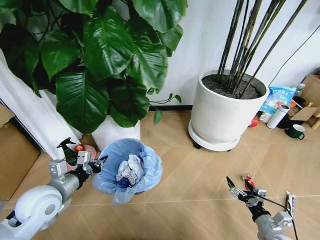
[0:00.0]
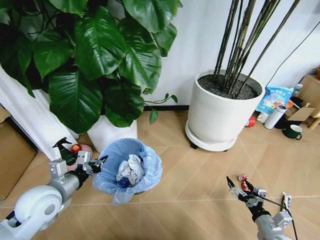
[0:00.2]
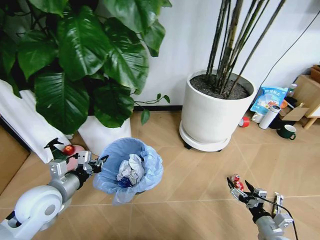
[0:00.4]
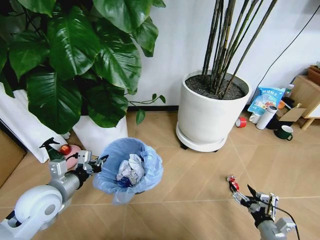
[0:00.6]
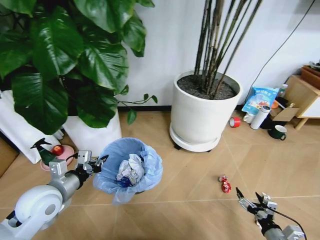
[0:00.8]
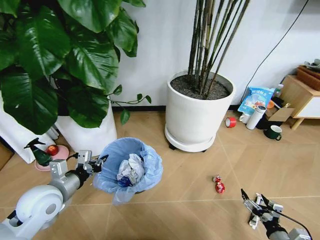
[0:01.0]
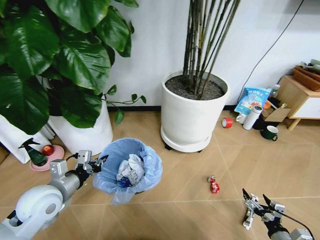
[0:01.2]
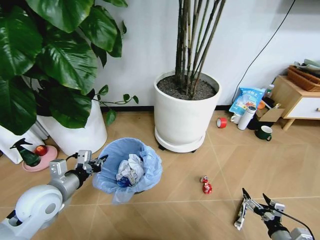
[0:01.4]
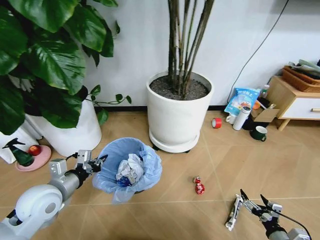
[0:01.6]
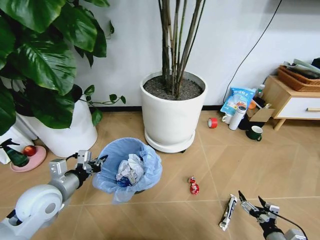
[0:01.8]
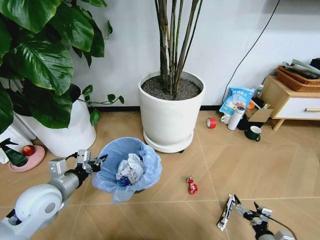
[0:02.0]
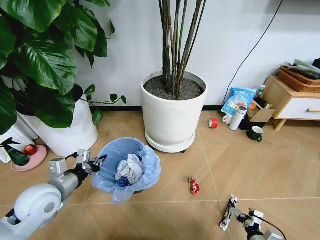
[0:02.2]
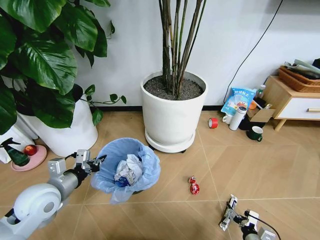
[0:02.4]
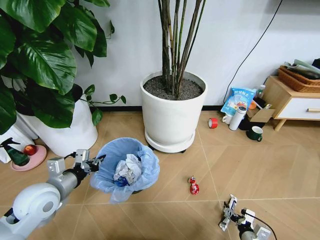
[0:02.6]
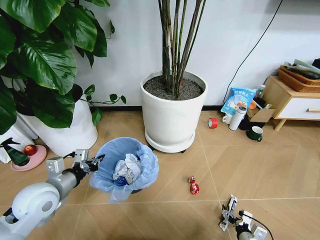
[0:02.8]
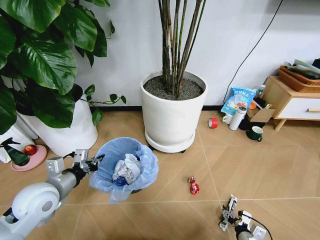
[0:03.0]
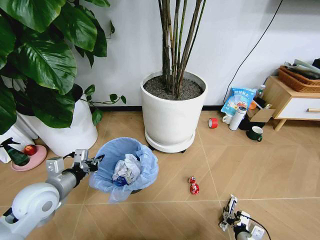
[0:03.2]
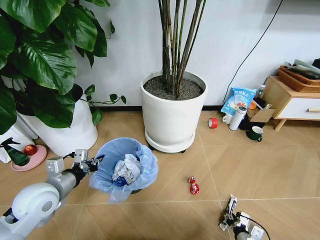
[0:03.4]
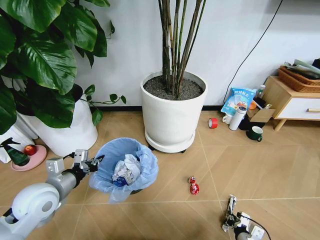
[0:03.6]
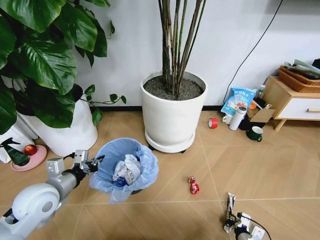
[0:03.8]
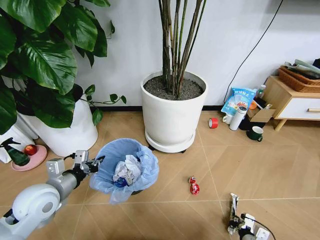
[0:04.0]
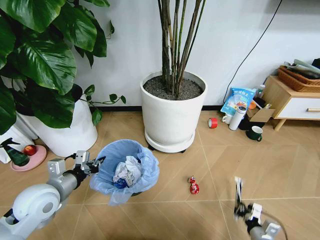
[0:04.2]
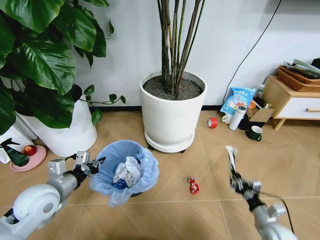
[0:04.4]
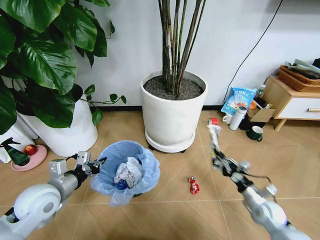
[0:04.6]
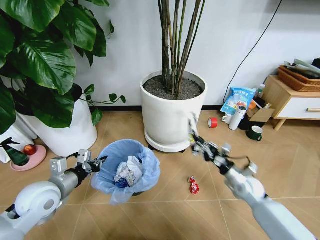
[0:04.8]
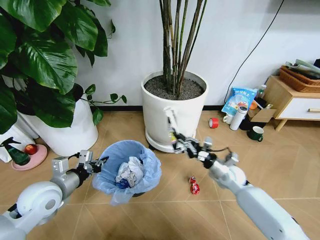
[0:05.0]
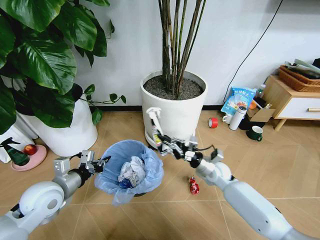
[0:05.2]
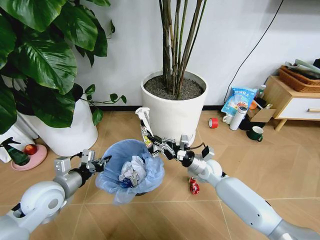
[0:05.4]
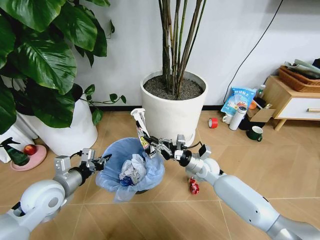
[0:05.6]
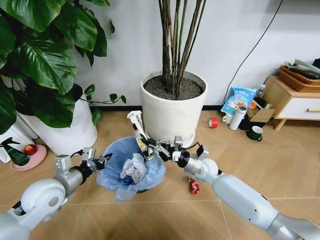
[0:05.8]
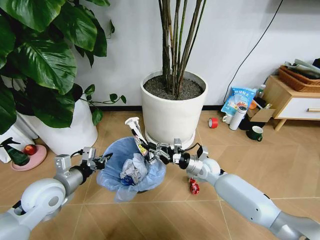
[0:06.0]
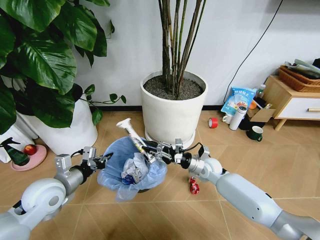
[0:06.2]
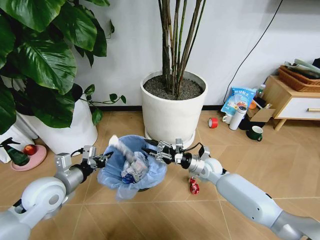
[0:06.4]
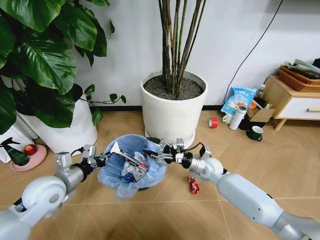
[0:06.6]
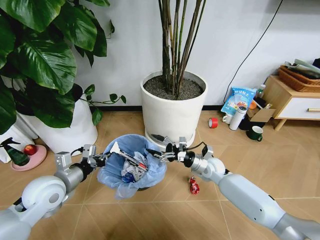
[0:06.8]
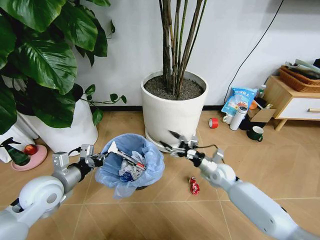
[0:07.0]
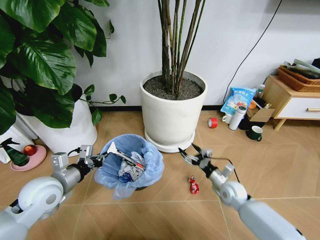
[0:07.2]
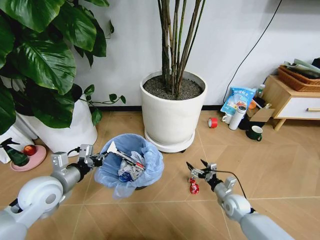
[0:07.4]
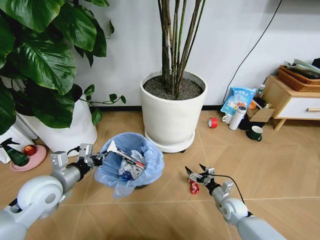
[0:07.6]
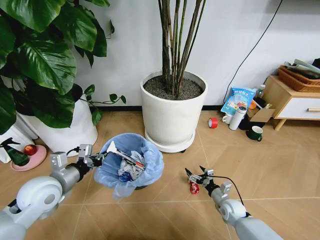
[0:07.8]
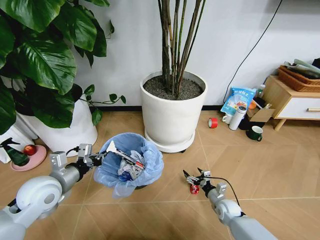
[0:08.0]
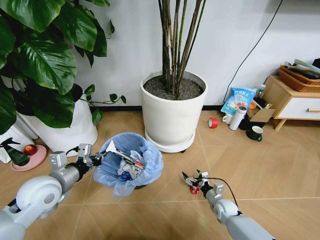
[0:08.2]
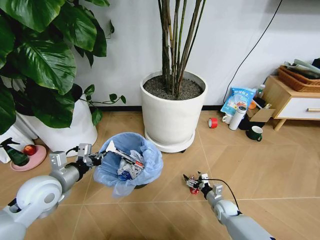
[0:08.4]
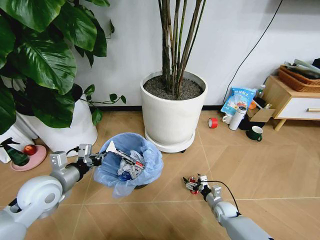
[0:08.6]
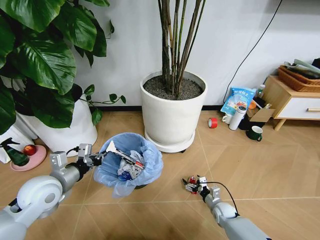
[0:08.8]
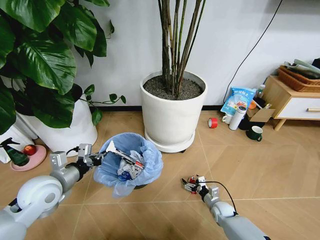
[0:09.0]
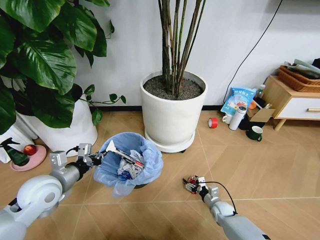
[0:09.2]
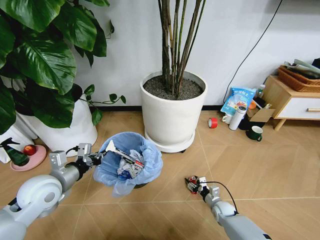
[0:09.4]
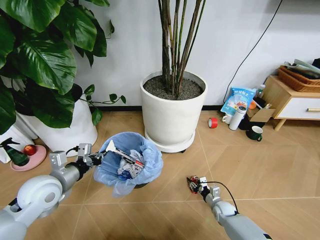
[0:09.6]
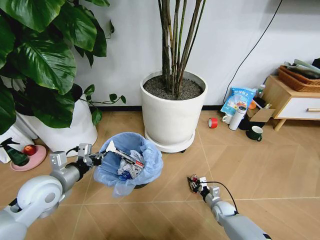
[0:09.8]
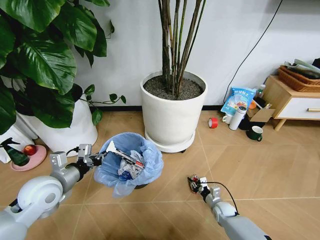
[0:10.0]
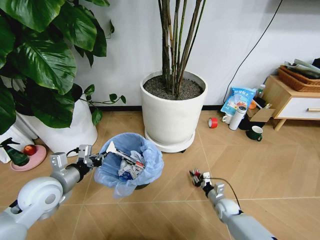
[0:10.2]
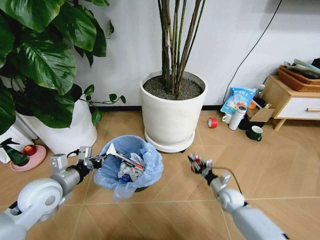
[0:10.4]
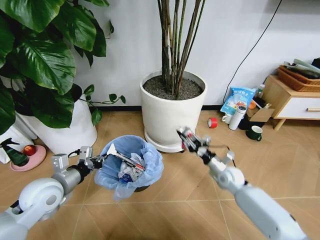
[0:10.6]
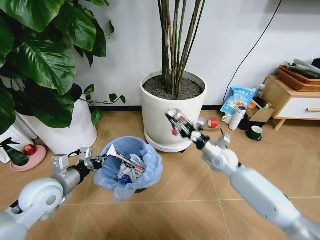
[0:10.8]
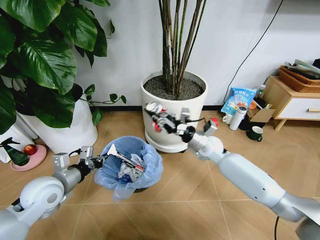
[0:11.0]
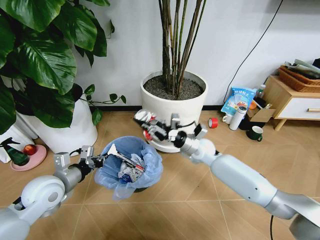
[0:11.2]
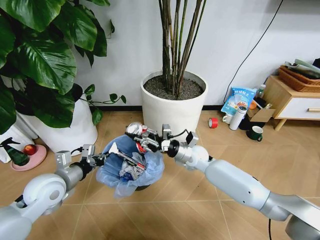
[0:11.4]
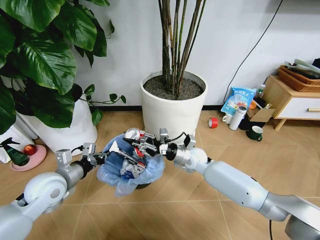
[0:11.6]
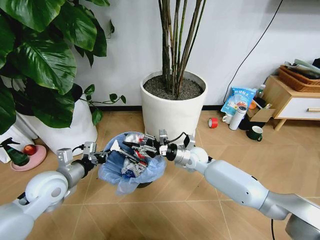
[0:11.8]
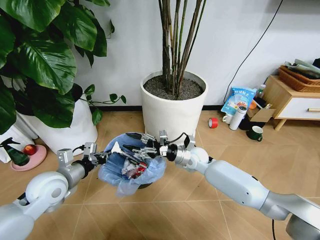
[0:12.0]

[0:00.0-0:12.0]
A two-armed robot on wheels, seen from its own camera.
Task of the whole recording: Pick up the trash bin and place the garbage on the floor into it.
0:00.0 to 0:01.6: The right gripper changes place by roughly 5 cm.
0:01.6 to 0:03.0: The right gripper goes roughly 10 cm to the left and downward.
0:03.0 to 0:04.4: The right gripper goes some 10 cm to the right and upward, and closes.
0:04.4 to 0:06.0: The right gripper travels forward and to the left by approximately 30 cm.
0:06.0 to 0:07.6: The right gripper goes about 20 cm downward, backward and to the right, and opens.
0:07.6 to 0:09.0: The right gripper is displaced downward by roughly 5 cm.
0:09.0 to 0:10.4: The right gripper is displaced upward by about 10 cm, and closes up.
0:10.4 to 0:12.0: The right gripper travels to the left, upward and forward by approximately 25 cm, and opens its fingers.

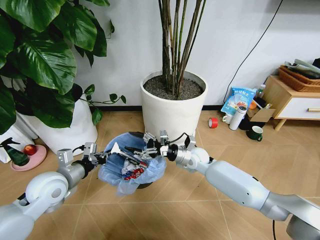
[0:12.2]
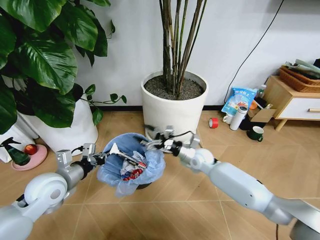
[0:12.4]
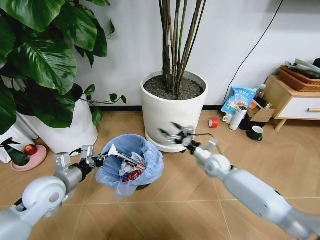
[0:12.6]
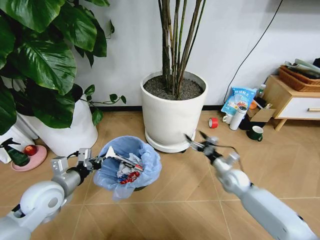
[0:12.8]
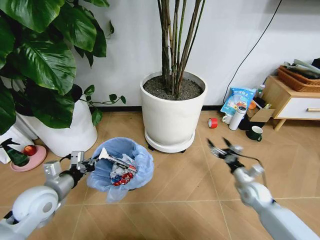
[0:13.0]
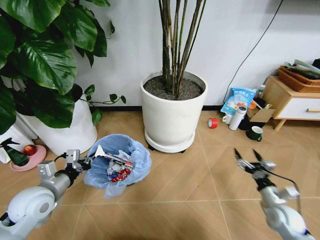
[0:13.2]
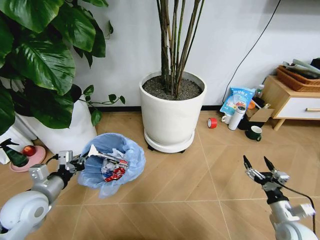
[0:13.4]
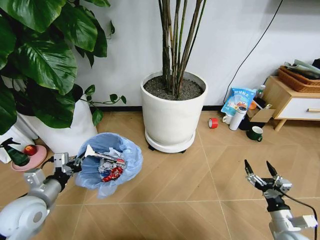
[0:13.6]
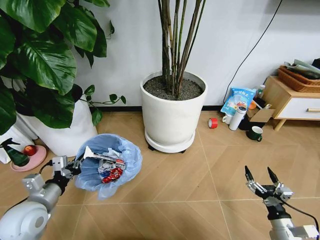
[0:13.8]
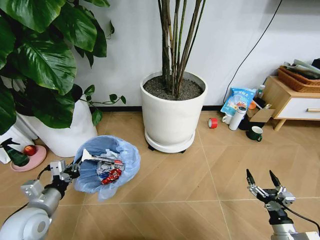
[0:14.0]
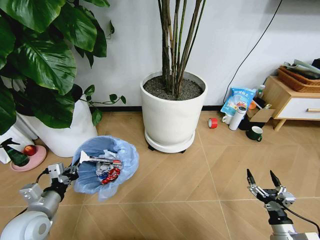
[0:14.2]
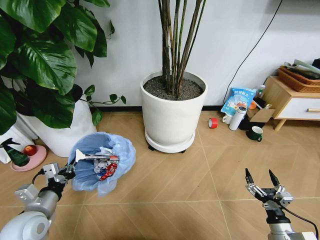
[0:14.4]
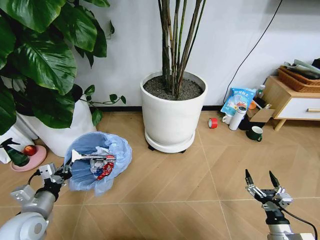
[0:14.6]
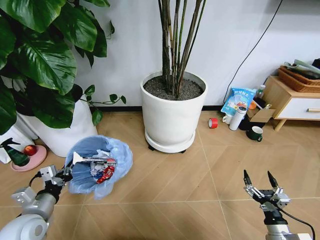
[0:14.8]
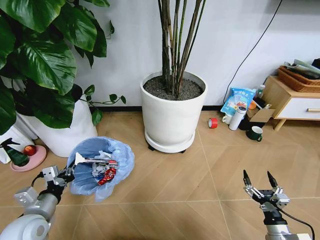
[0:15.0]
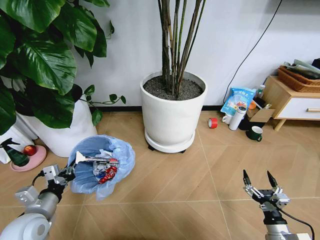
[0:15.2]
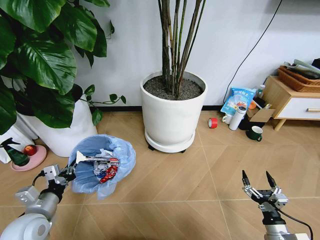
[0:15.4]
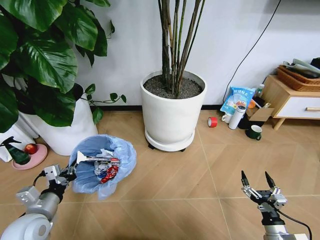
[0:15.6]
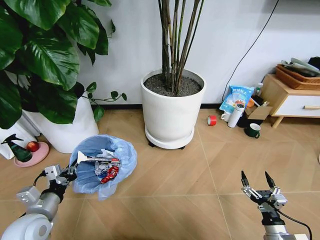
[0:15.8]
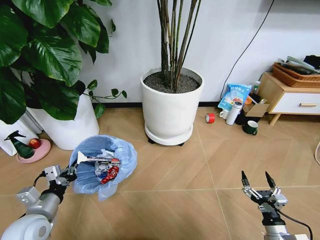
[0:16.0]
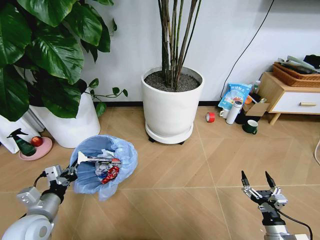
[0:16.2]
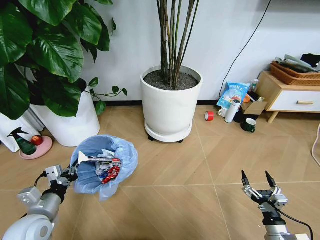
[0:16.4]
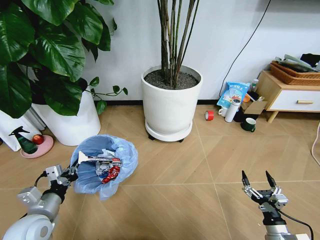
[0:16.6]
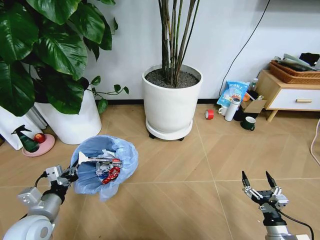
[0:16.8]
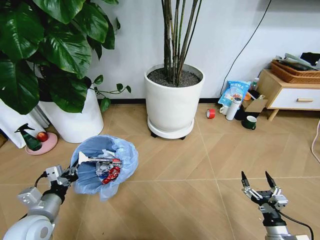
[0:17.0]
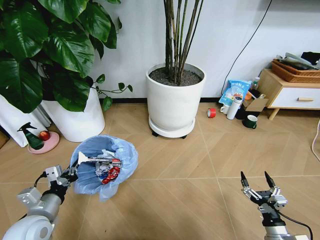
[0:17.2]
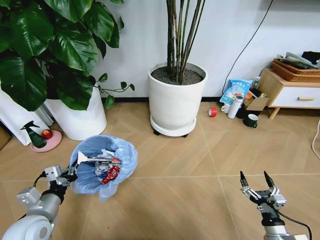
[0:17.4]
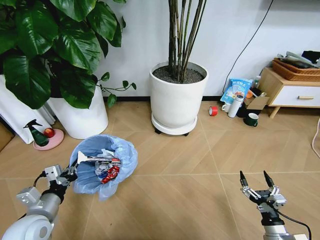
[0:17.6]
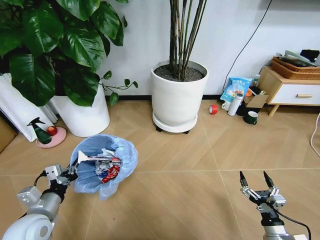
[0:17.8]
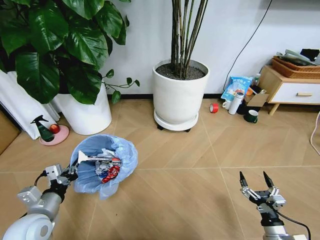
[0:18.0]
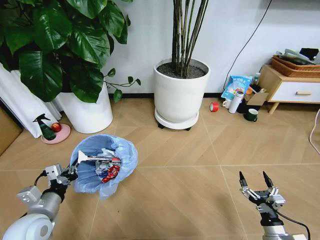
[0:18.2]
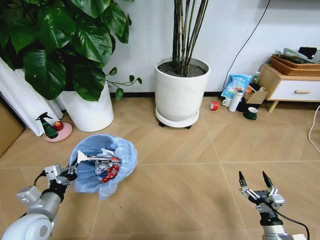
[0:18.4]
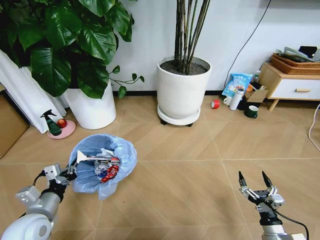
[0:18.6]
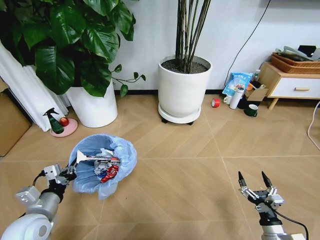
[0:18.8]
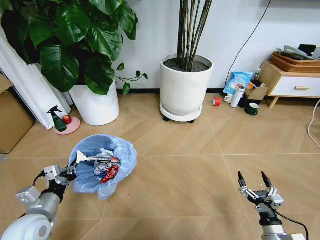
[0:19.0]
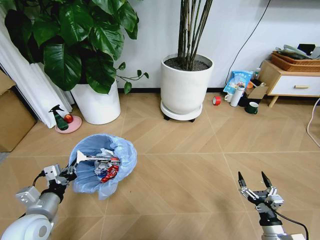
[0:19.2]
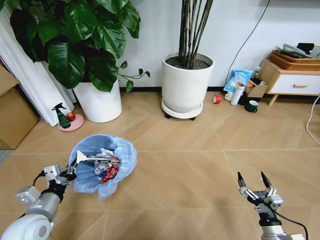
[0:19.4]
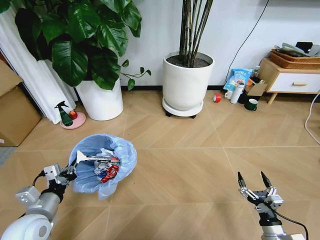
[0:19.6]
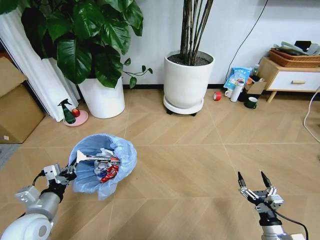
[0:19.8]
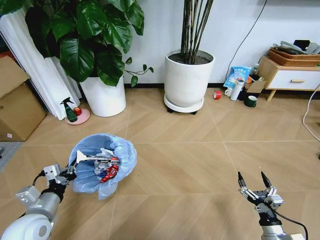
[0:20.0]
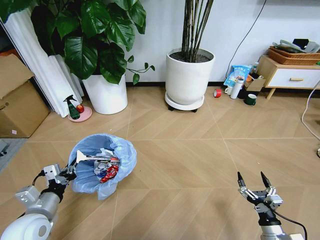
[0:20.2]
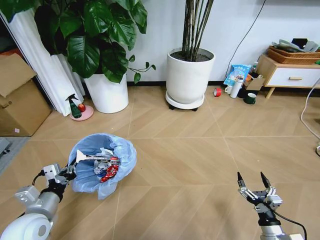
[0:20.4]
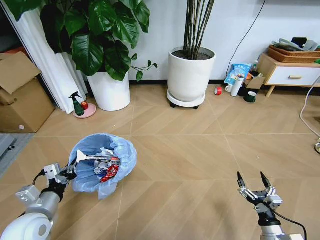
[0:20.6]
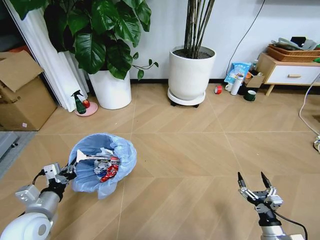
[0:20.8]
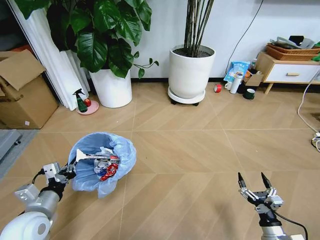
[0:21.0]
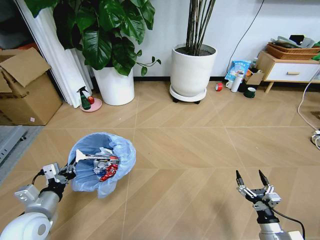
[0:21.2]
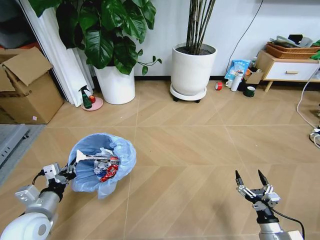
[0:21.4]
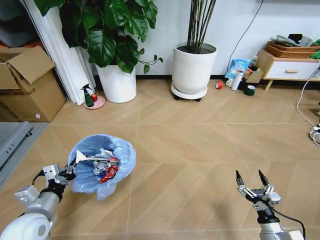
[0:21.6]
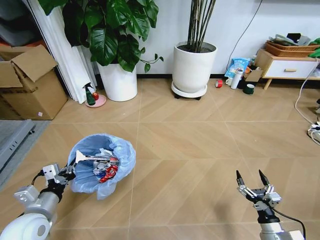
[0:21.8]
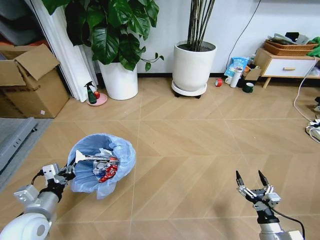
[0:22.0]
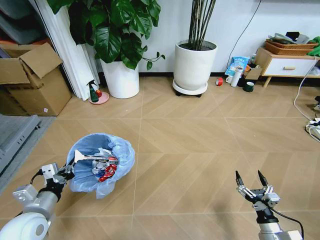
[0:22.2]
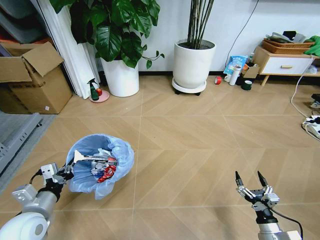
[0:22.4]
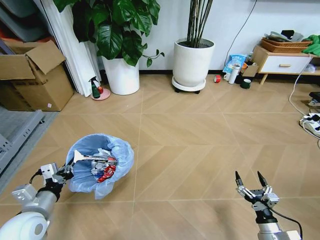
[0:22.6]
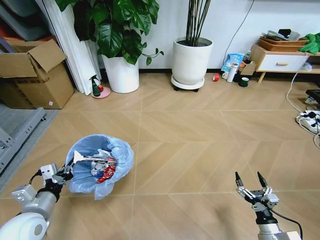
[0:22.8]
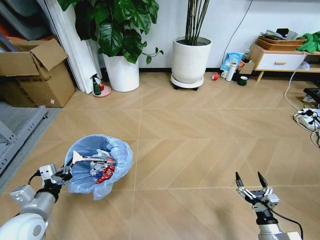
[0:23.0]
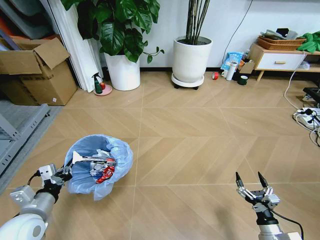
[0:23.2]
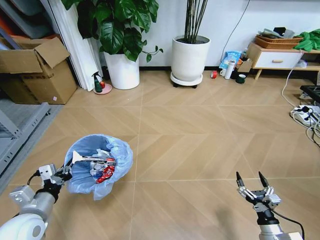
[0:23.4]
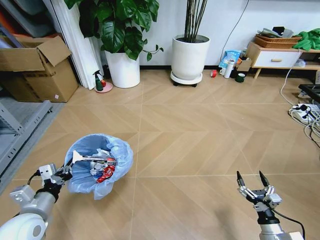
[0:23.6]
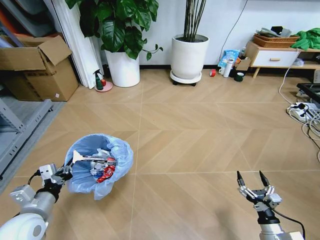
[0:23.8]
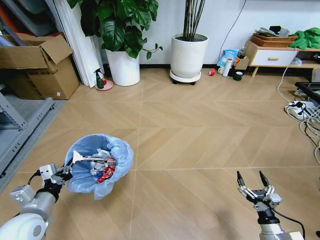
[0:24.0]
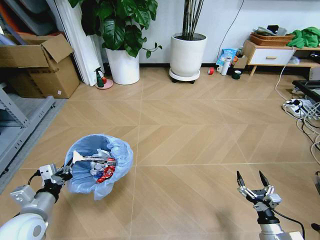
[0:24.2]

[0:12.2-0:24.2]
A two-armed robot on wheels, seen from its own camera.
Task of the whole recording: Pick up the trash bin and place the garbage on the floor into it.
0:12.2 to 0:13.8: The right gripper heads backward and to the right, covering roughly 40 cm. Meanwhile the left gripper goes some 5 cm backward.
0:13.8 to 0:15.2: There are only small adjustments of the grippers.
